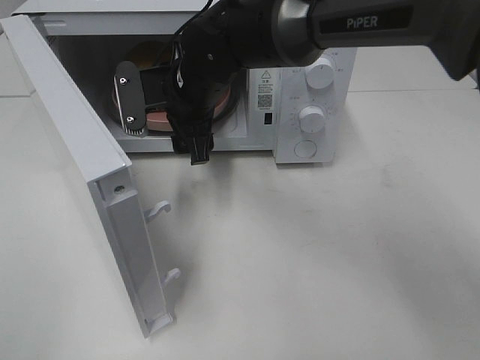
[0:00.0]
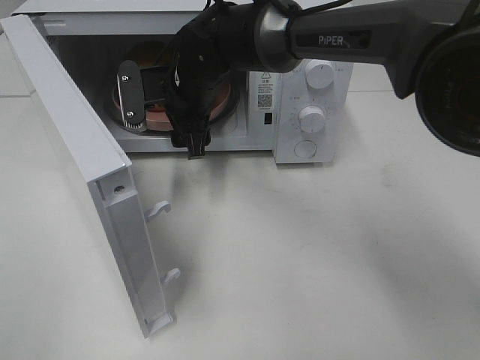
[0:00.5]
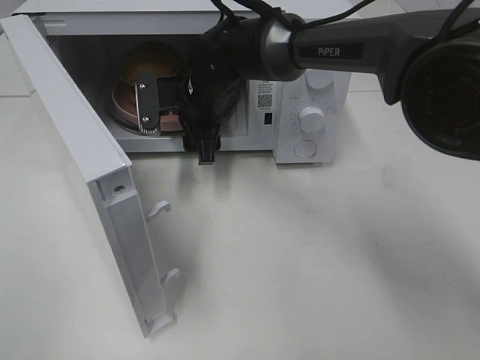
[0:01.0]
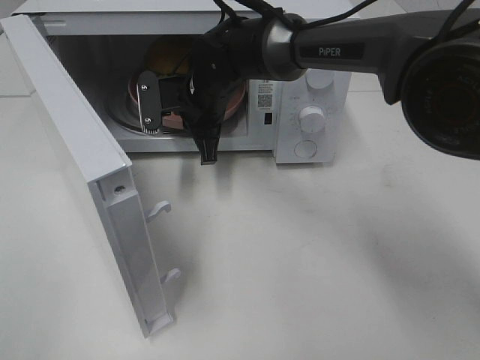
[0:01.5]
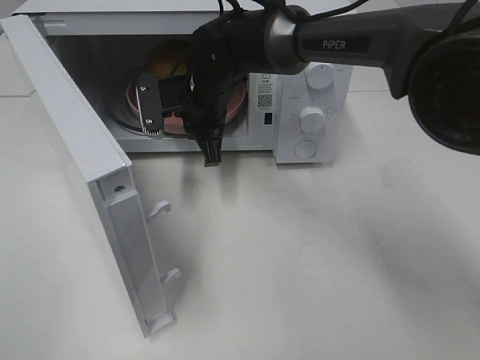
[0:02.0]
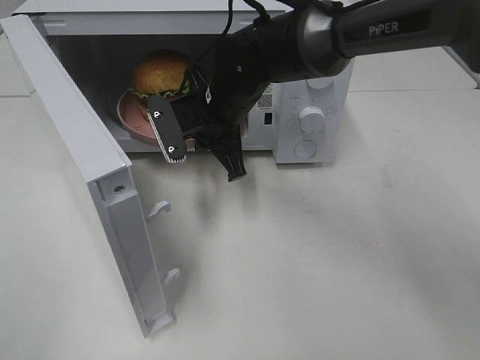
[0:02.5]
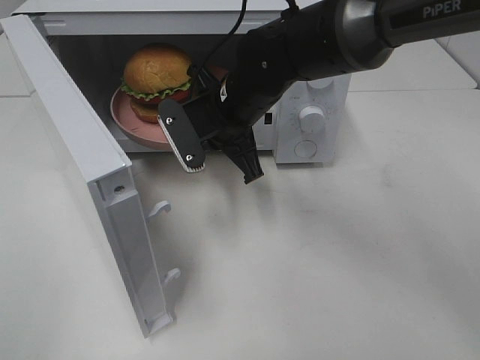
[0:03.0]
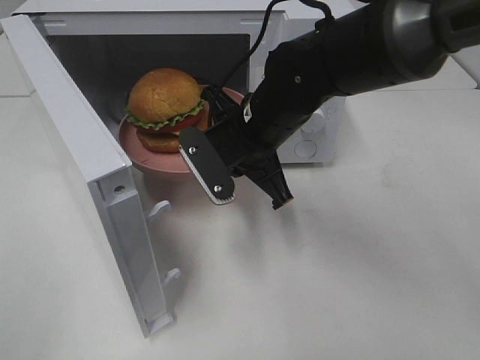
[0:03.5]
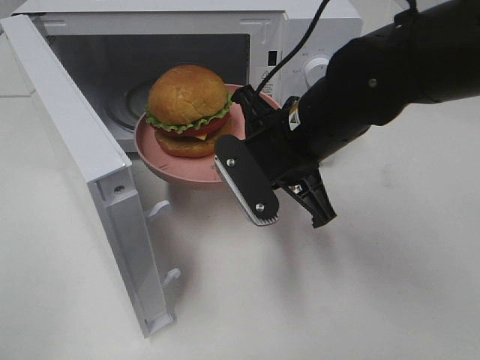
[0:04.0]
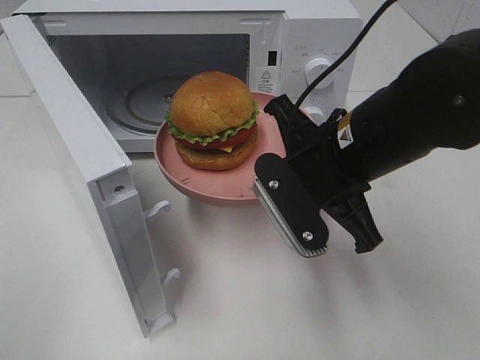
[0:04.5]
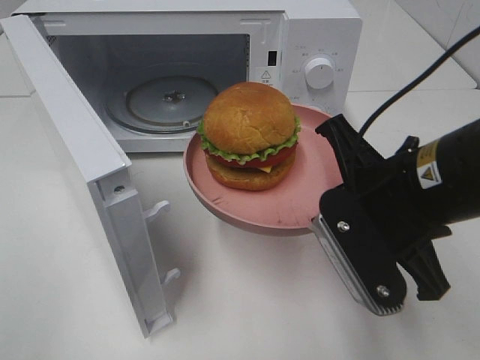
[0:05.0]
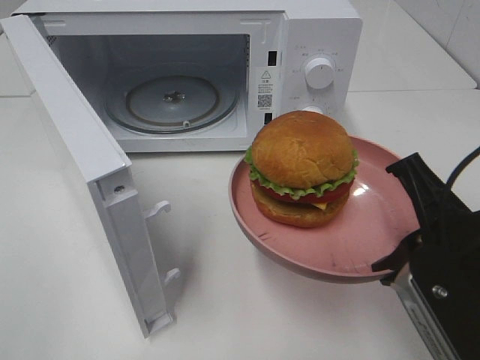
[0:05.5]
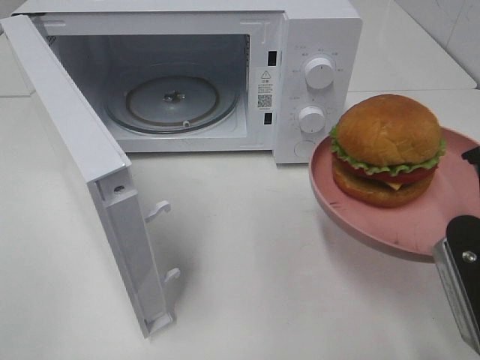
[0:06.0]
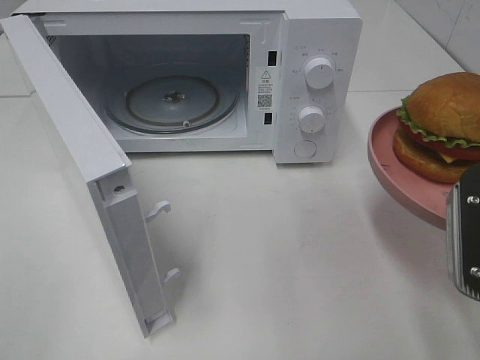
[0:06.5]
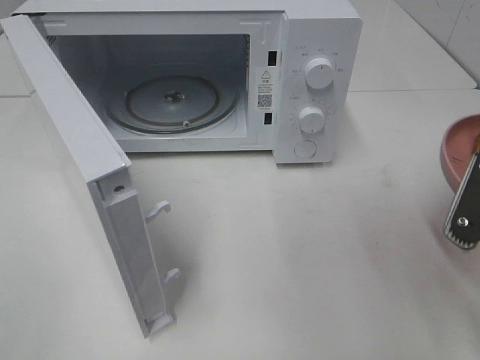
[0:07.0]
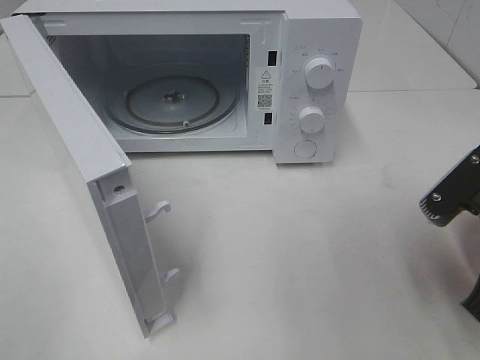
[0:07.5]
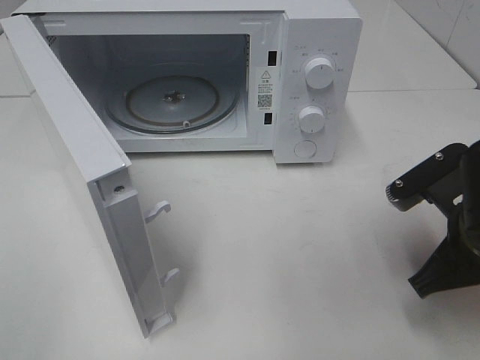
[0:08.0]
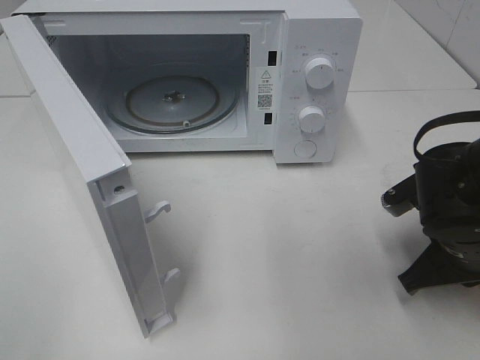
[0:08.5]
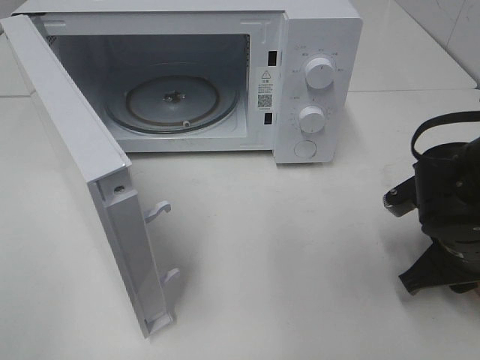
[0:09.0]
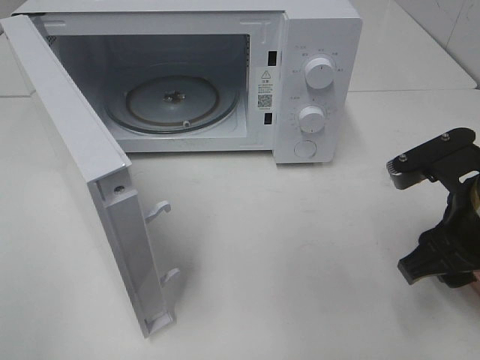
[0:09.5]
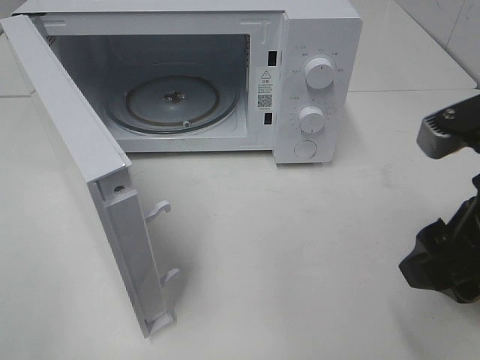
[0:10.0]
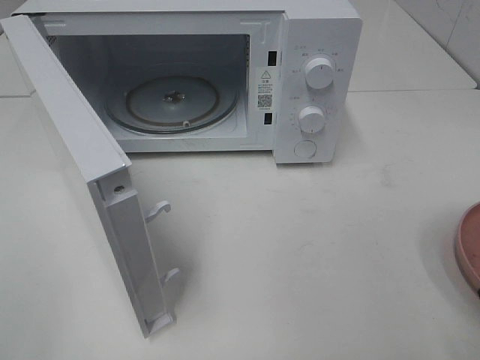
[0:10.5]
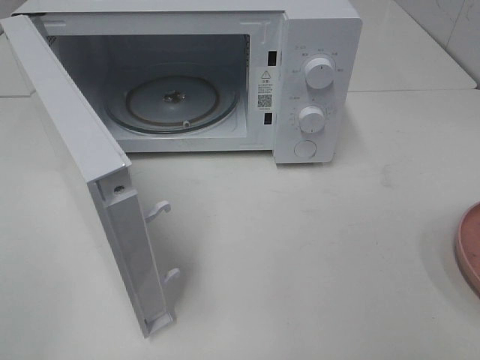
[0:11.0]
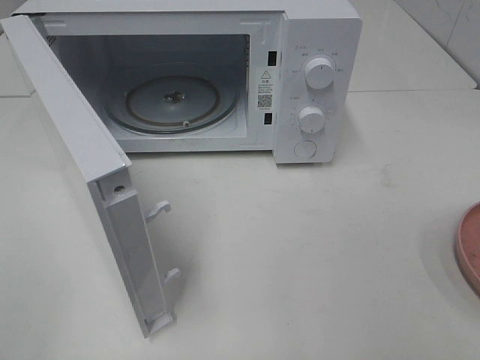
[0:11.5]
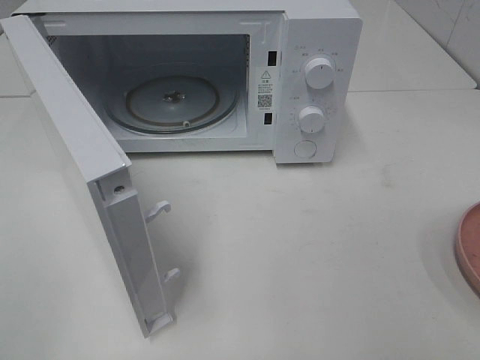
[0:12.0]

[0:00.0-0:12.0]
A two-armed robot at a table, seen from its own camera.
Task of the whole recording: Heat the burger.
Step, 0:02.0 to 0:09.0: Right hand: place the plate on the table.
0:00.0 to 0:02.0: The right gripper closes up.
0:02.0 to 0:04.0: The right gripper is displaced backward and to the right by roughly 20 cm.
0:04.0 to 0:06.0: The right gripper goes some 20 cm backward and to the right.
0:06.0 to 0:08.0: The right gripper shifts about 10 cm downward and forward.
0:08.0 to 0:10.0: The right gripper goes some 10 cm upward, and opens up.
0:10.0 to 0:12.0: The right gripper heads backward and to the right, covering roughly 15 cm.

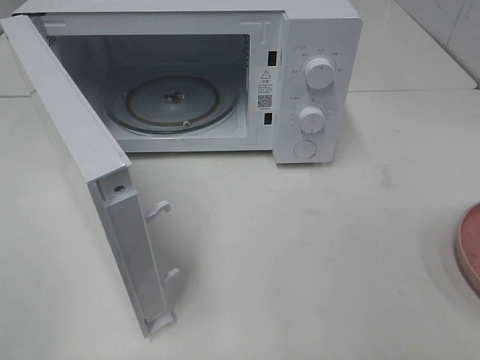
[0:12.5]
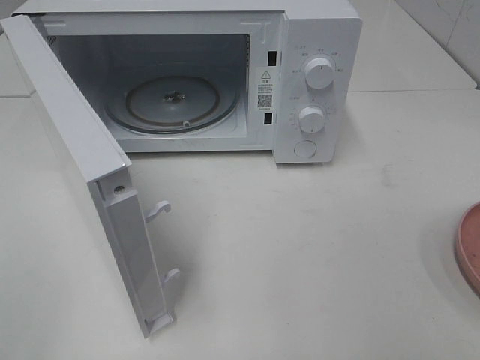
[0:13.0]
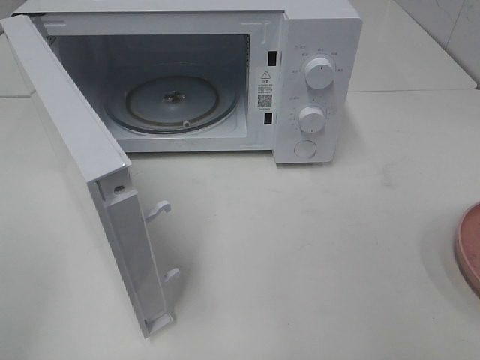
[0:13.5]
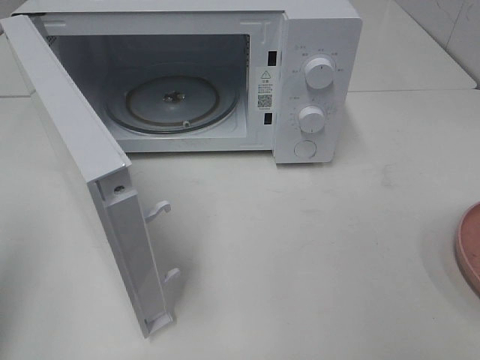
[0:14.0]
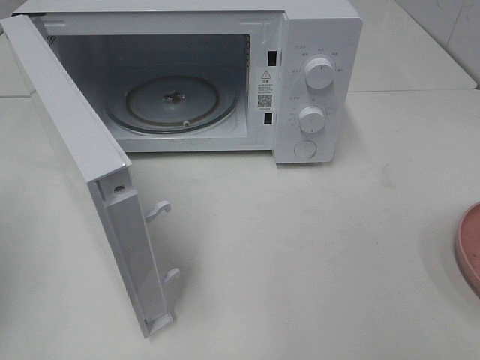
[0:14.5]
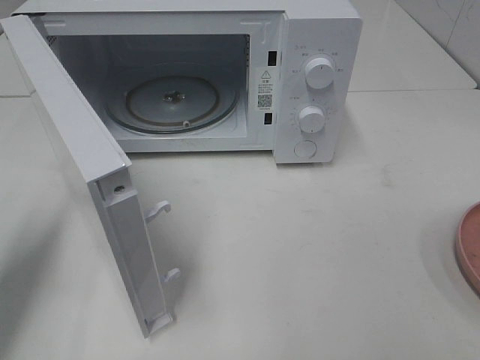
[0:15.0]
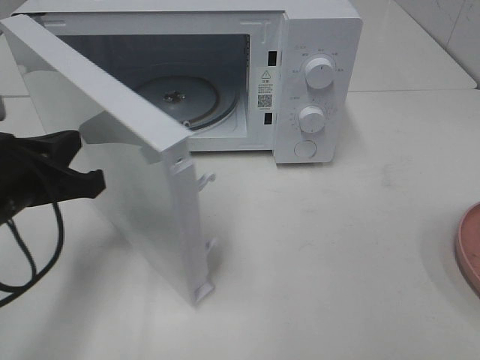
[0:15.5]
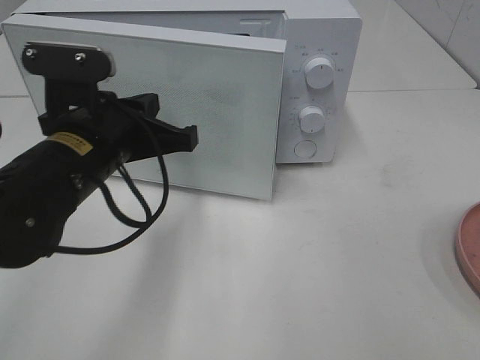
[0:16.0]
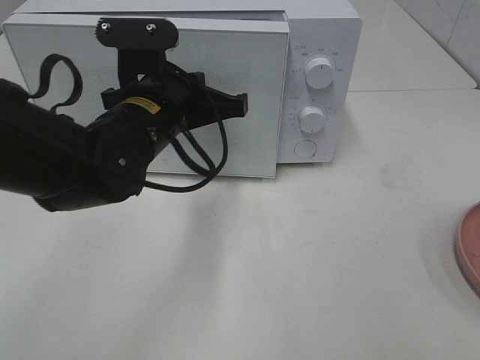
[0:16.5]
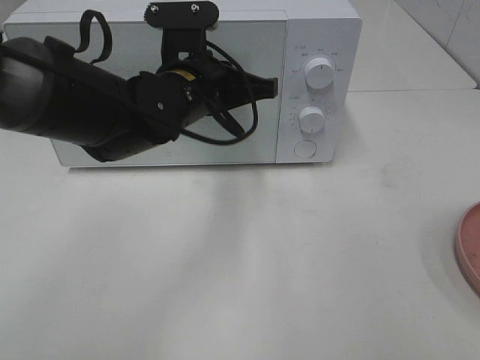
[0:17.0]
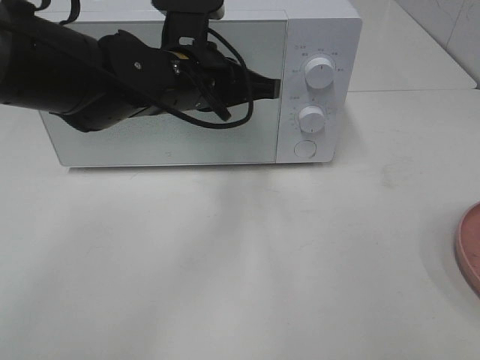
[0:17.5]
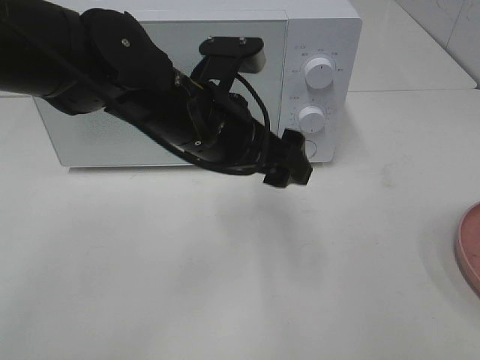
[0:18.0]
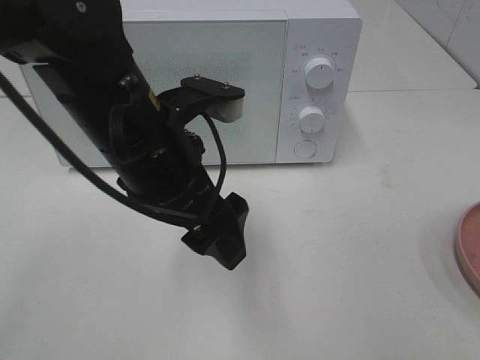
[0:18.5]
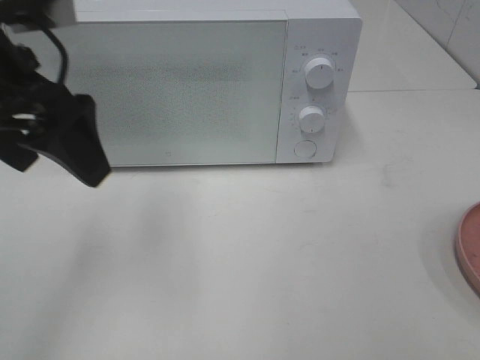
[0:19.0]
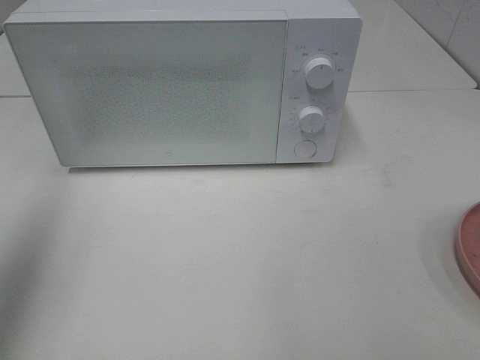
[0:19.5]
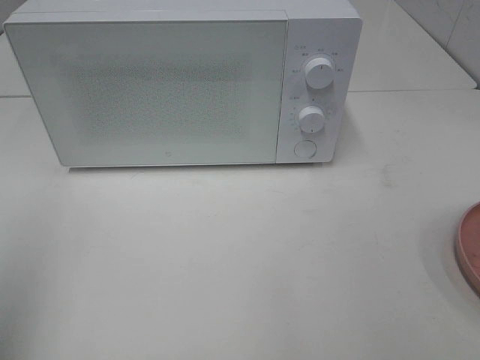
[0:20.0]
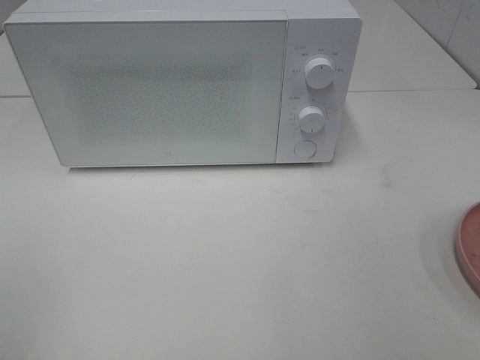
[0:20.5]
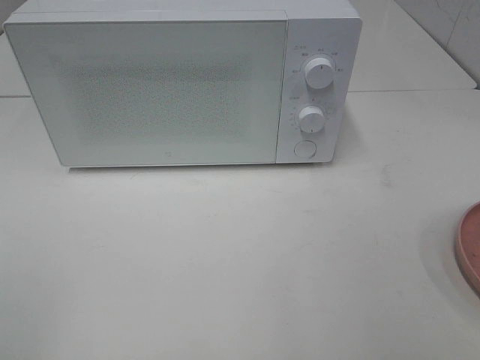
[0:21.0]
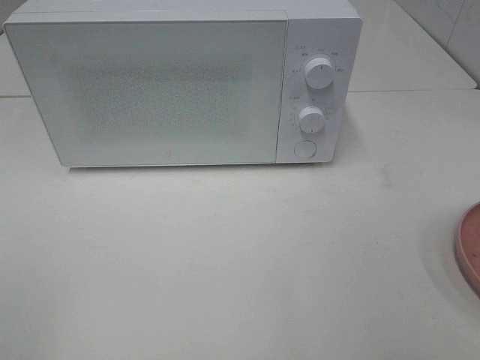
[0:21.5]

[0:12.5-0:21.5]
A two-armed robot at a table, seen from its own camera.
Task of the whole recording: Heat the burger.
Step, 0:12.5 to 0:17.5: Left hand: close the microwave door.
0:14.5 to 0:17.0: The left gripper moves to the right and forward, approximately 35 cm.
0:17.0 to 0:19.5: The left gripper travels to the left, upward and backward by some 35 cm, and opens its fingers.
0:19.5 to 0:21.5: The left gripper travels backward and downward by approximately 25 cm.

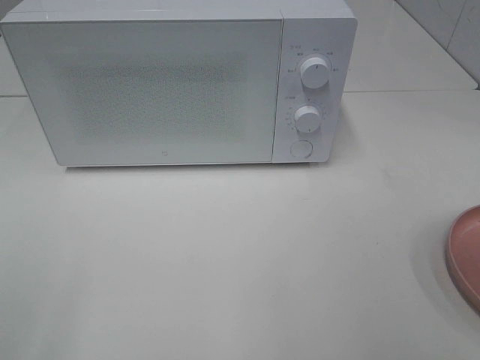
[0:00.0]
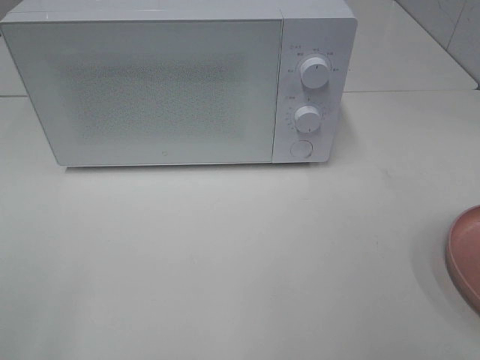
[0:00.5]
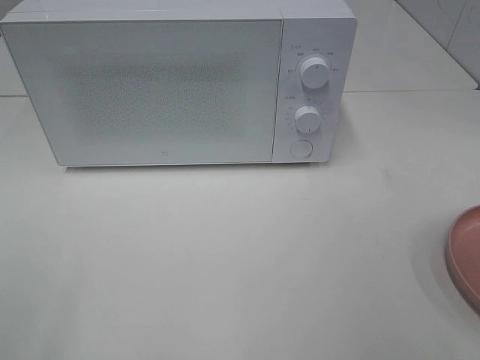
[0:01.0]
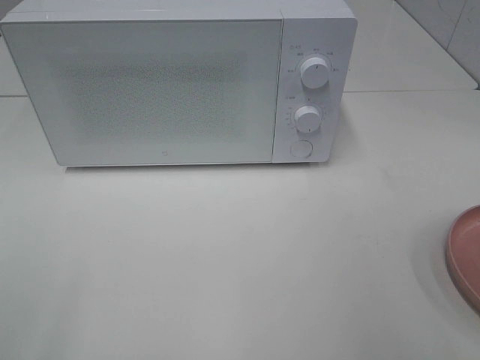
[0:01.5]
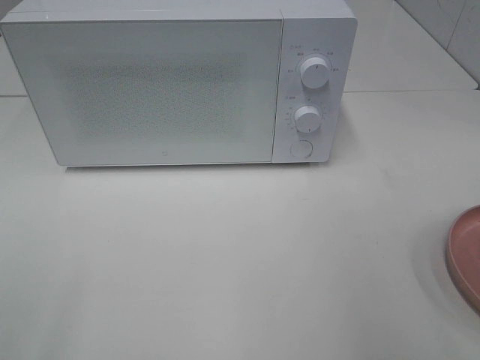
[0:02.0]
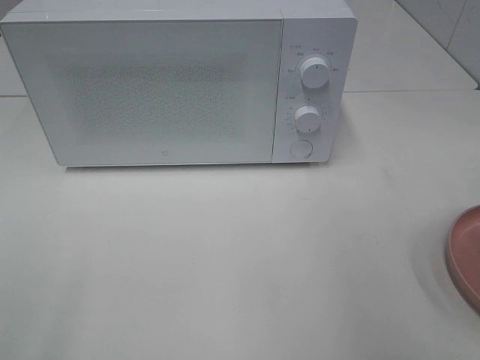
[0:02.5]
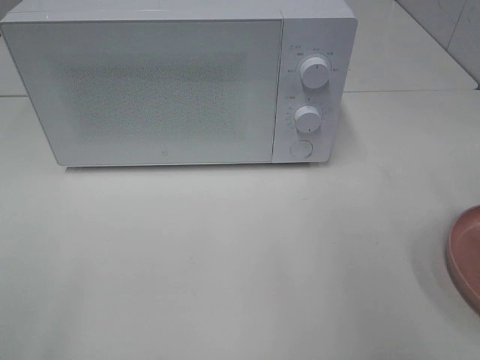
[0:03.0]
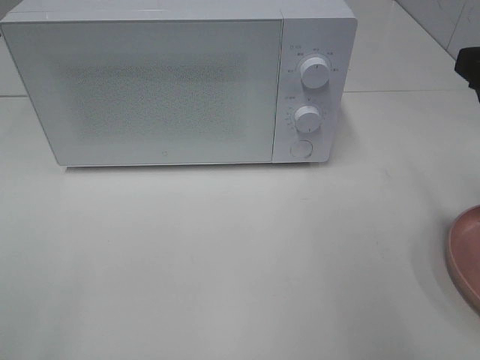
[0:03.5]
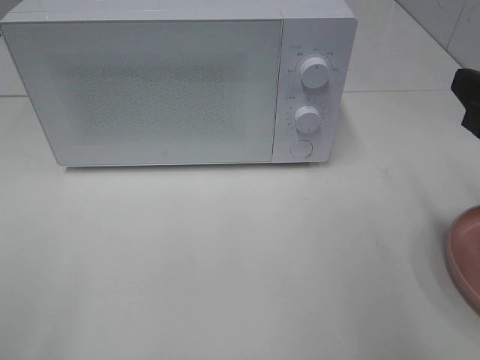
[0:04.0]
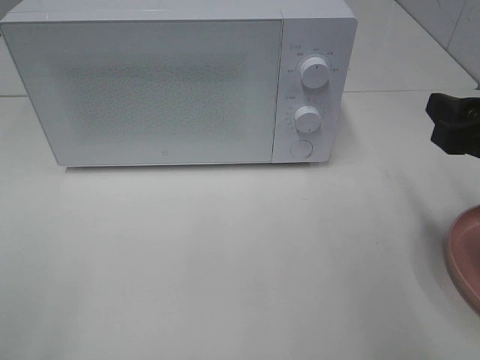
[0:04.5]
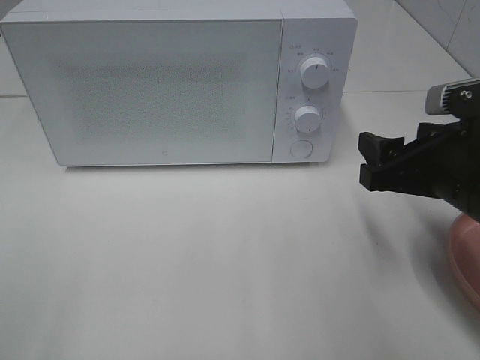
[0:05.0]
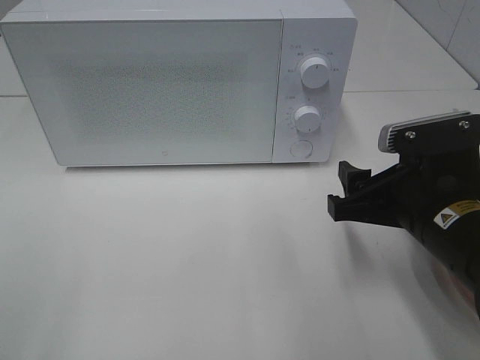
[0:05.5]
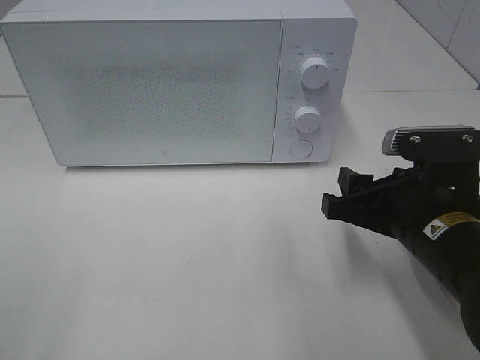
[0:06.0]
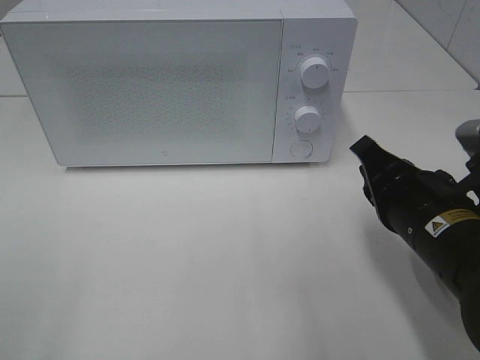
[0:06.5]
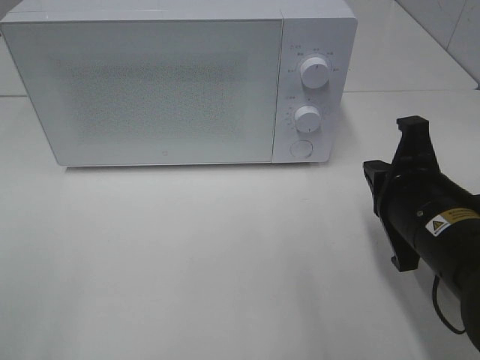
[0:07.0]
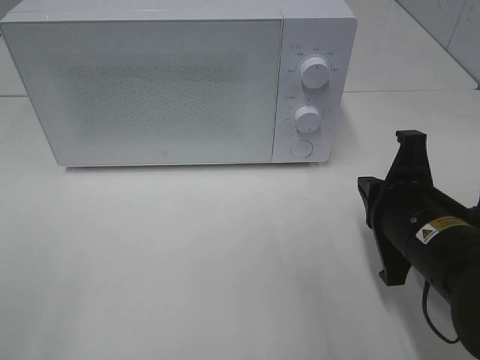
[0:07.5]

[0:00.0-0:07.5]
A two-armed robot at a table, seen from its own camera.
Task of the whole recording: Heat the burger.
0:02.0 to 0:04.0: The right gripper is displaced forward and downward by approximately 10 cm.
0:04.0 to 0:05.5: The right gripper moves downward and to the left, some 15 cm.
0:05.5 to 0:07.5: The right gripper closes up.
